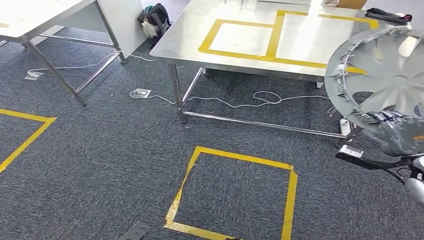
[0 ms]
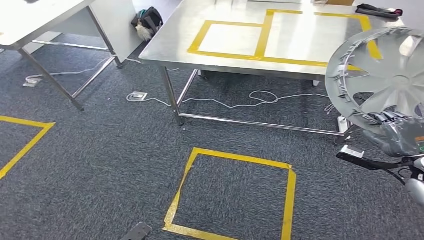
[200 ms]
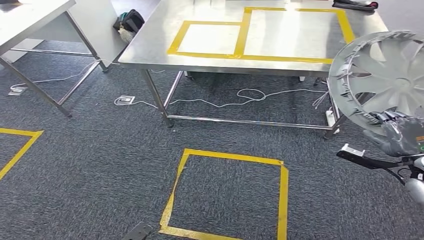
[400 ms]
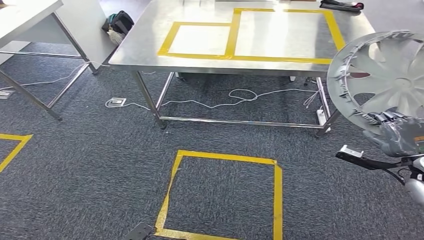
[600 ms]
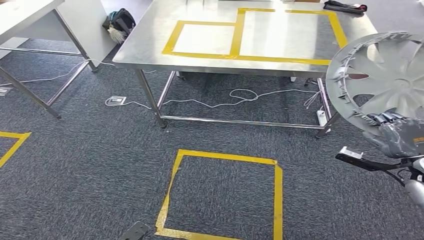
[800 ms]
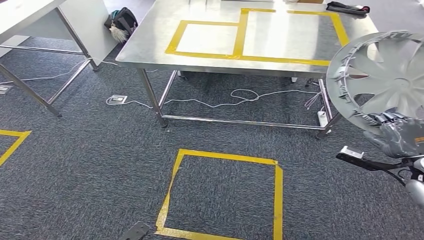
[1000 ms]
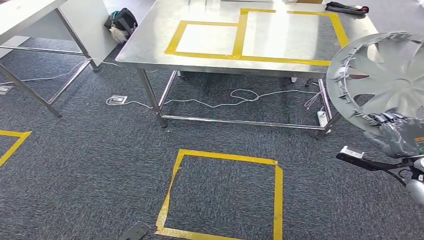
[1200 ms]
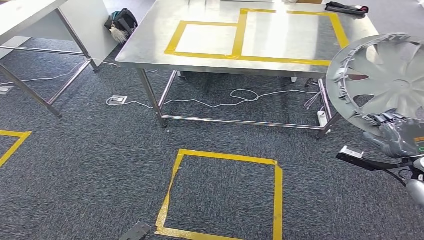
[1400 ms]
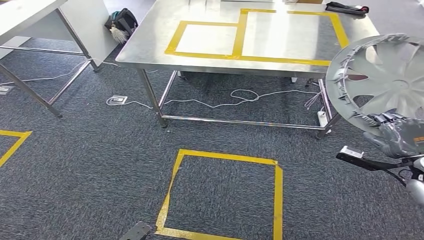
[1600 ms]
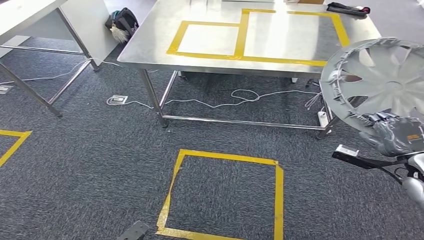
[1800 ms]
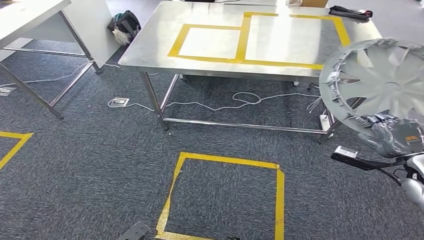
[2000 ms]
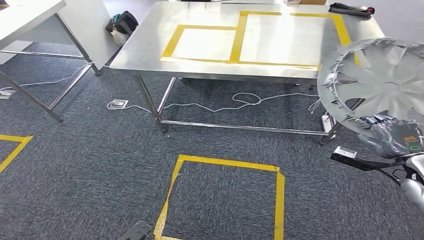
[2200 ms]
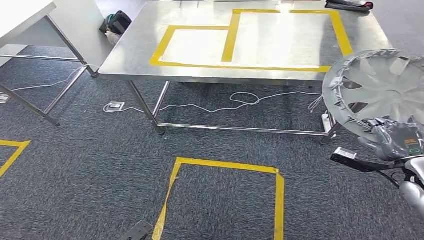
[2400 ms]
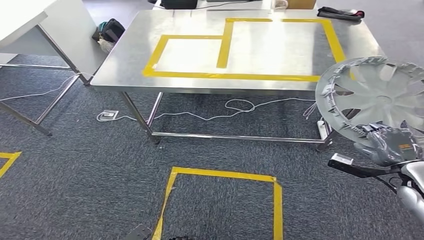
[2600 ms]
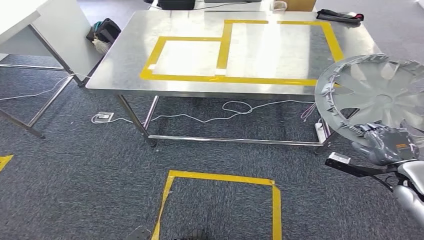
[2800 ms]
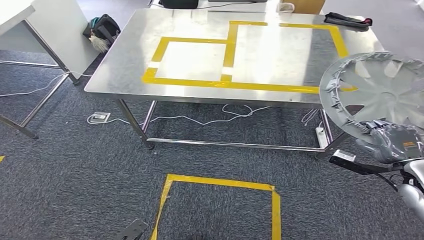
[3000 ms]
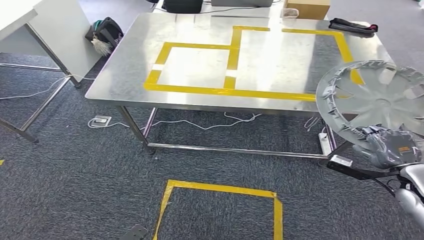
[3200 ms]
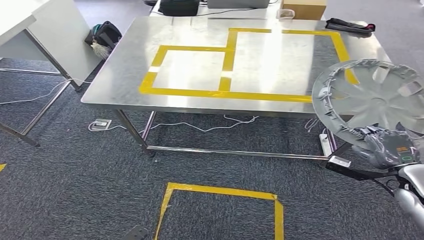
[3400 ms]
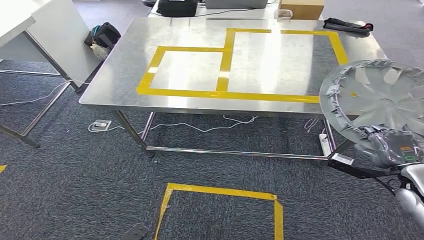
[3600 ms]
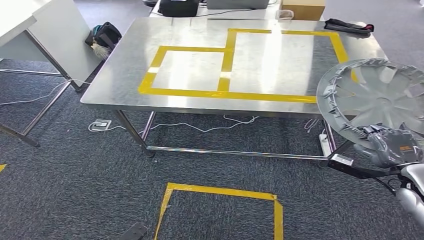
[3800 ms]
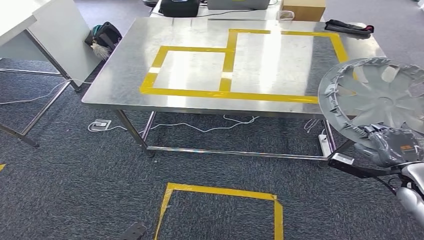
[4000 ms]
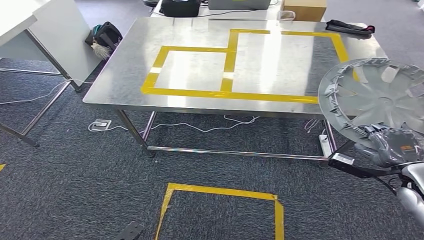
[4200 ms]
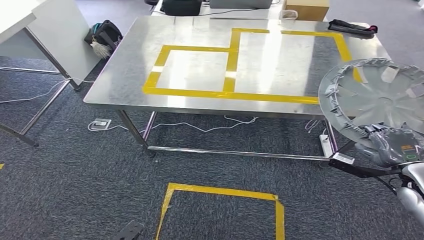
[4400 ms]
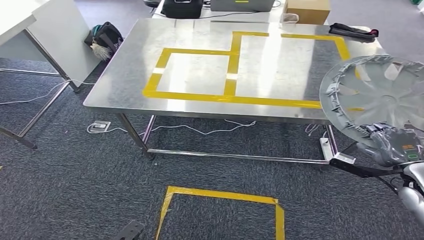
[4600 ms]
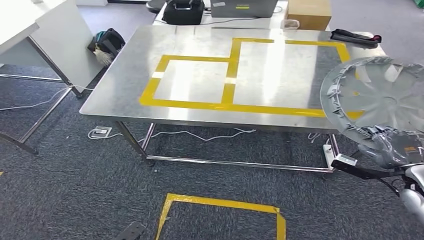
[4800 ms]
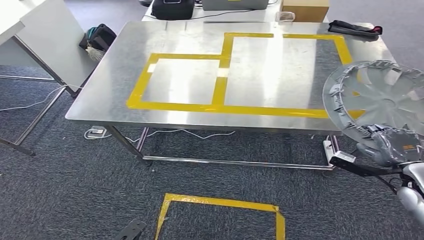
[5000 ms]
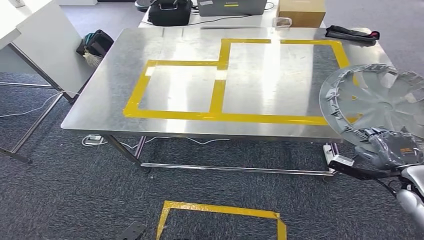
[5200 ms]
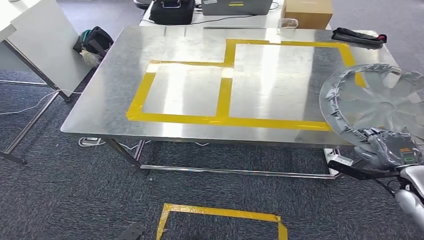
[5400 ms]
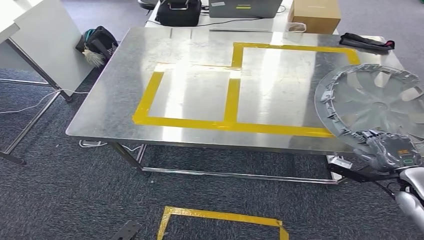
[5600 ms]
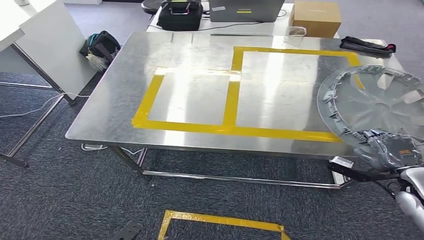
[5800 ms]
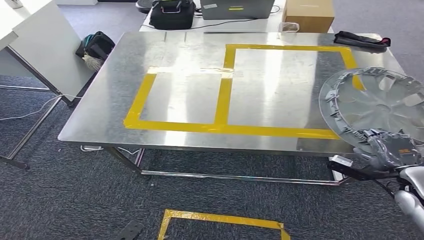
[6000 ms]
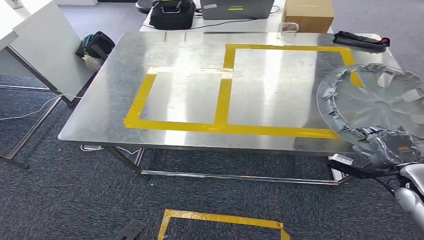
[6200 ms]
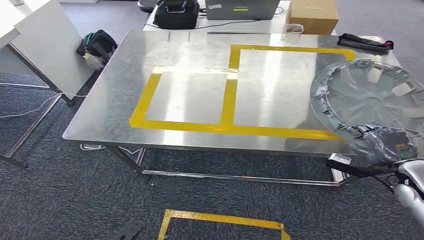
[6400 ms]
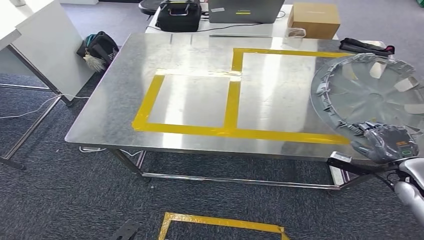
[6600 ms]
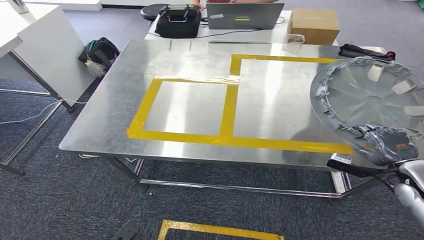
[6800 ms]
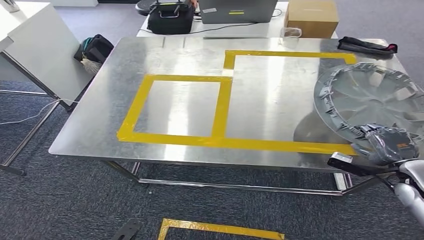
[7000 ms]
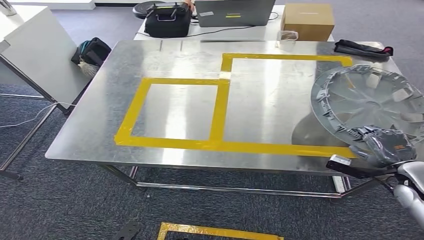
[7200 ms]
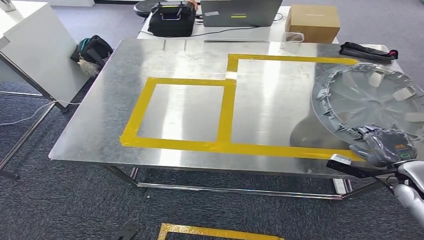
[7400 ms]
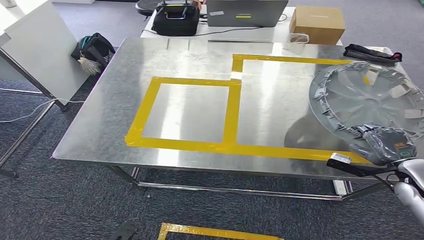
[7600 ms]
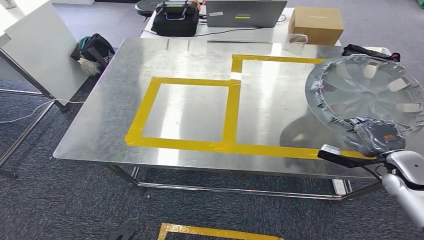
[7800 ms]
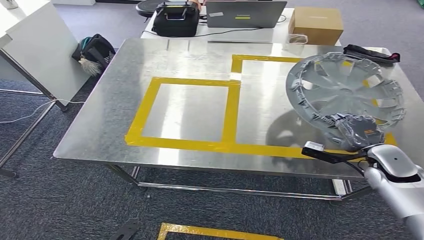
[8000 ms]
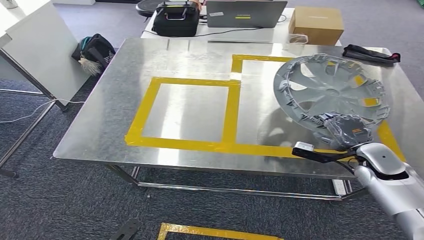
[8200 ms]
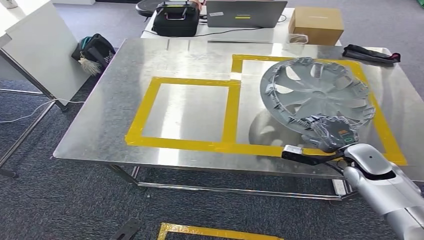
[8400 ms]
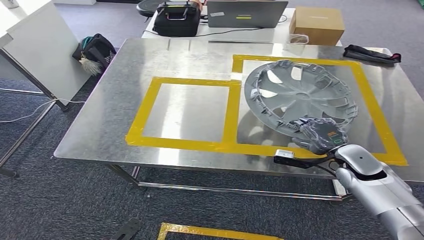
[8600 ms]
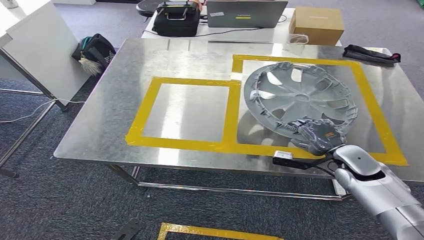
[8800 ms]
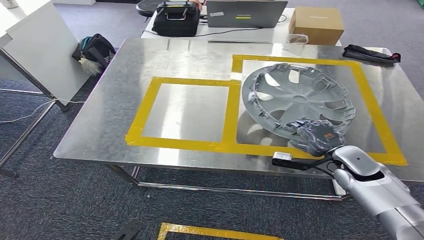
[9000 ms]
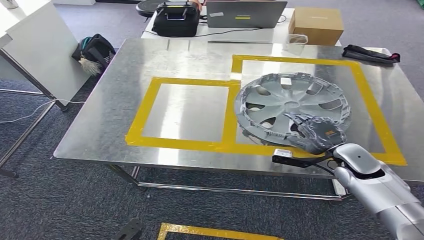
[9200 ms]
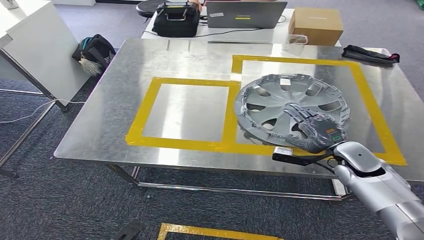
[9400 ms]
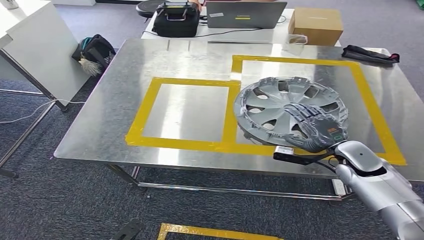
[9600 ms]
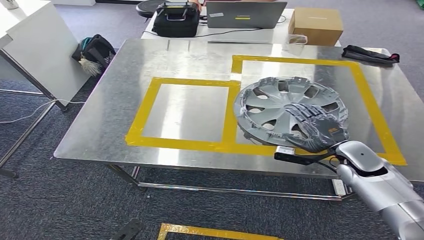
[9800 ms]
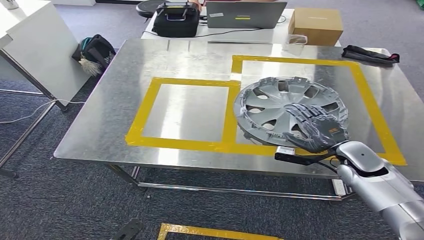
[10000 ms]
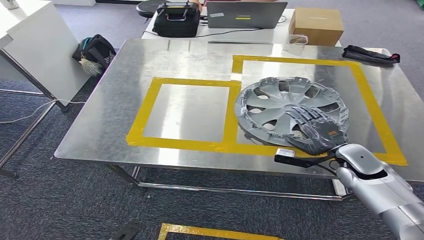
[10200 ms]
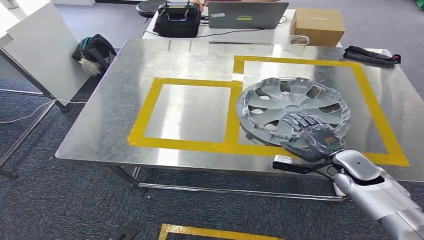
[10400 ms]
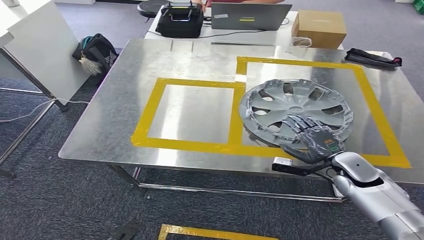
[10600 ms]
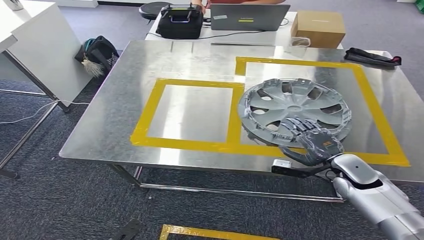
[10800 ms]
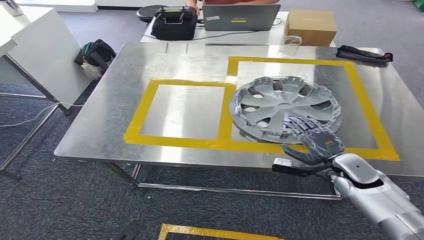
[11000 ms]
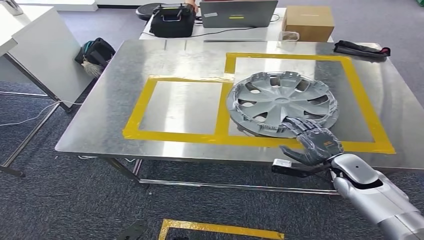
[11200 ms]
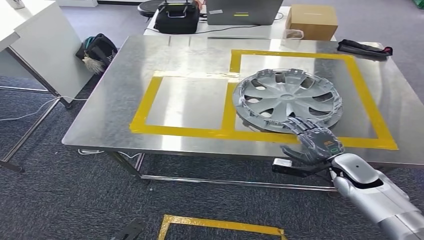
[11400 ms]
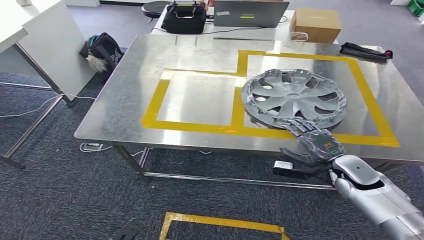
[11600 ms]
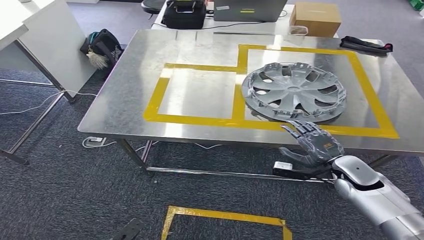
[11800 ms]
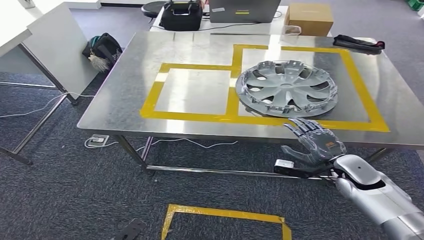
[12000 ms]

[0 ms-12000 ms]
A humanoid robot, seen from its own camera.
Step, 0 ms to 11000 ms: Insert the small component into the corresponding slot on the workbench.
7600 ms to 9000 ms: The right hand moves to the left and forward, some 10 cm.
9000 ms to 10400 ms: There are only small adjustments of the hands.

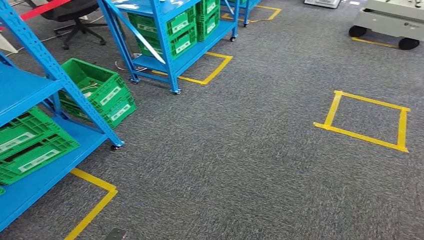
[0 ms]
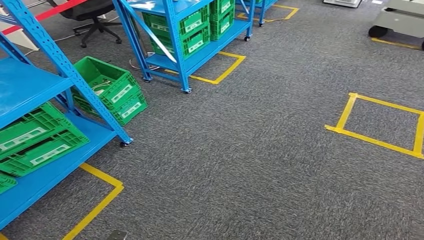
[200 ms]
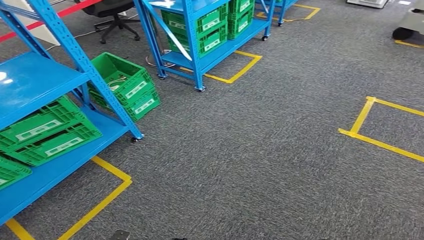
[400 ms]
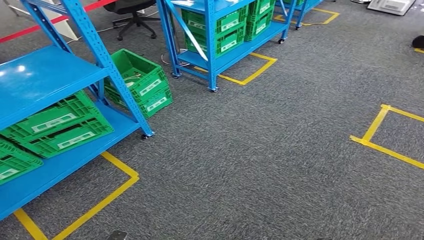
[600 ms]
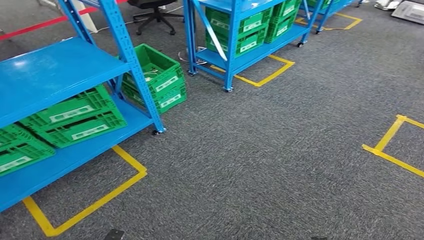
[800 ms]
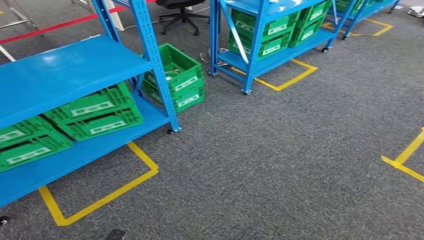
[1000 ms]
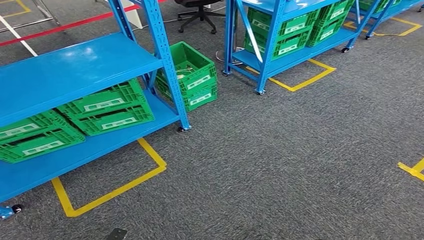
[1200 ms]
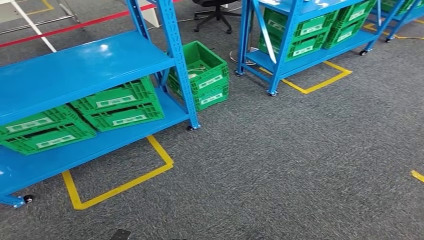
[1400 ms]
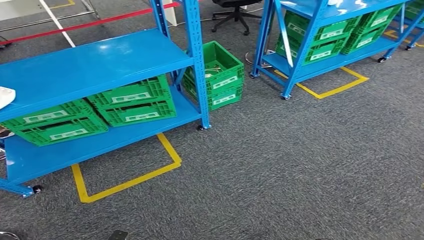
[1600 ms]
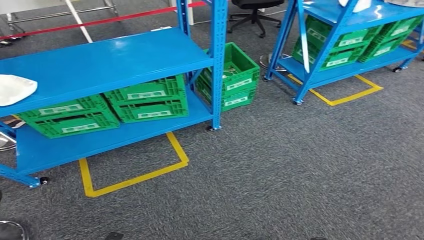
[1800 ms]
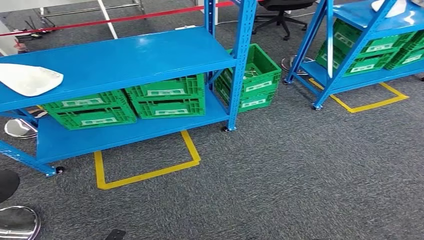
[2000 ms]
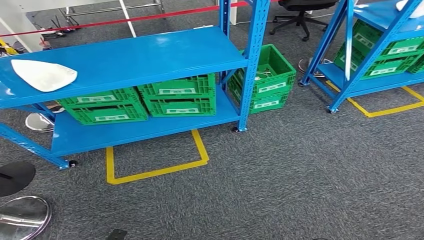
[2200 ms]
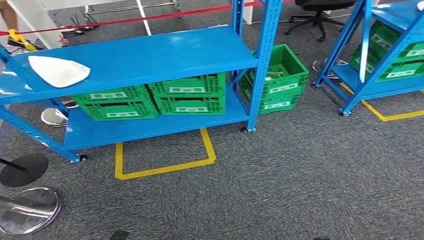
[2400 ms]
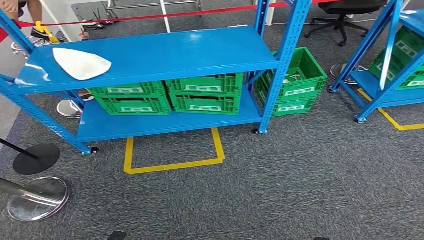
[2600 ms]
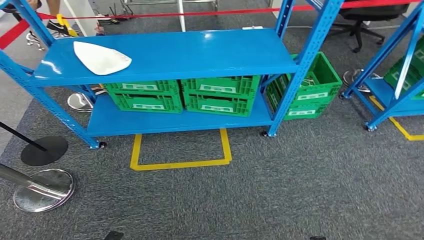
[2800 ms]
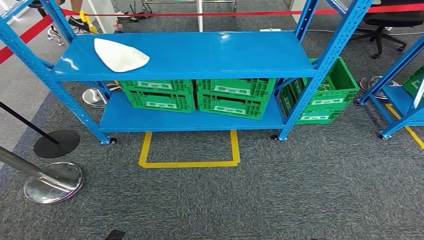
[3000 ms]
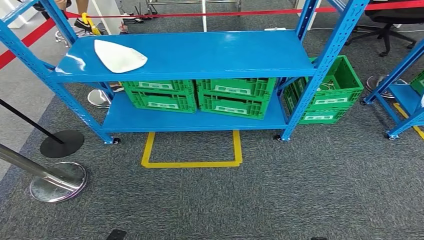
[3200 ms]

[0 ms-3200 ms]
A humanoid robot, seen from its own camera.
Step, 0 ms to 3200 ms: Return to the initial position at the workbench.
